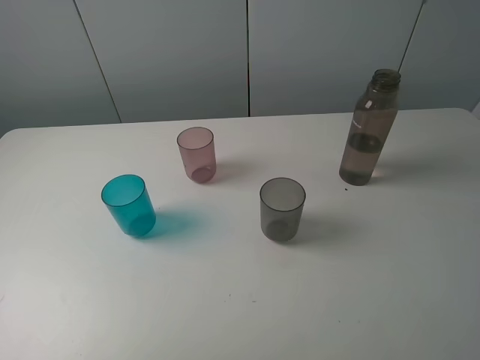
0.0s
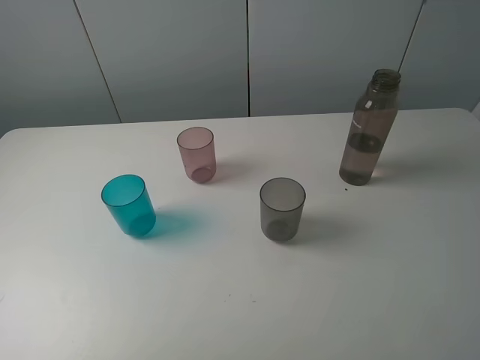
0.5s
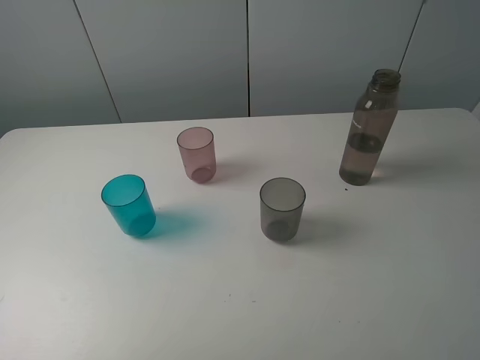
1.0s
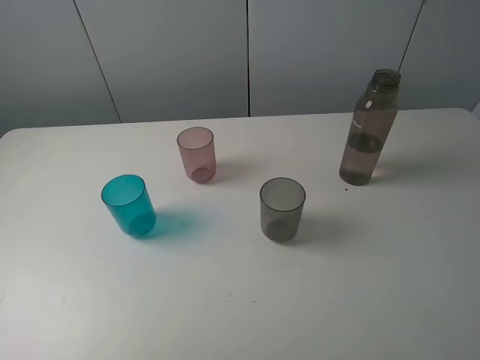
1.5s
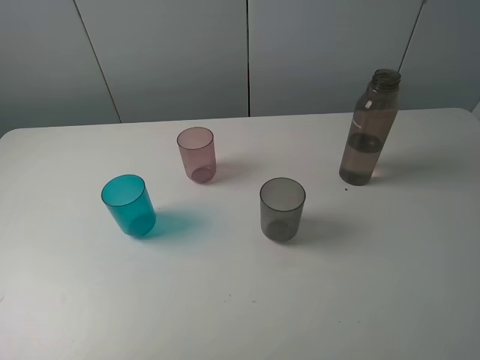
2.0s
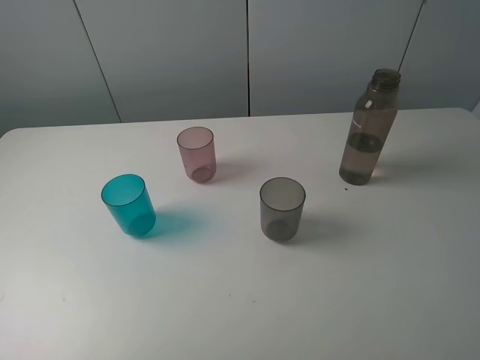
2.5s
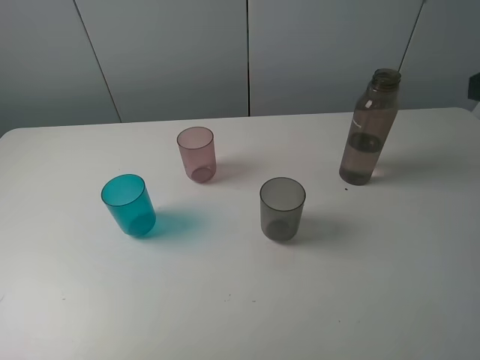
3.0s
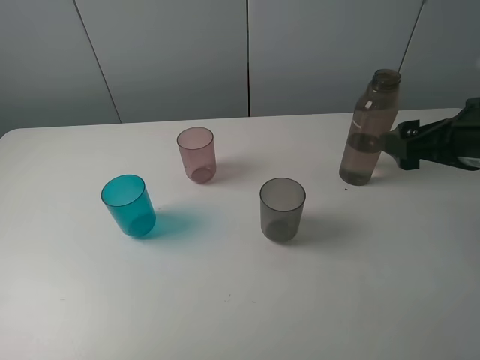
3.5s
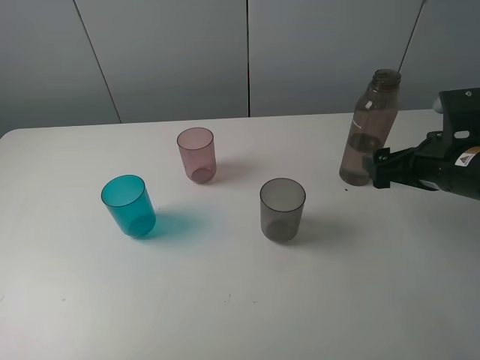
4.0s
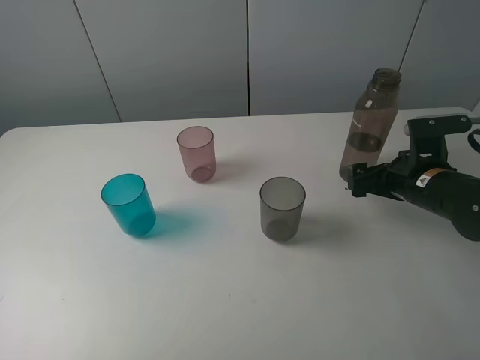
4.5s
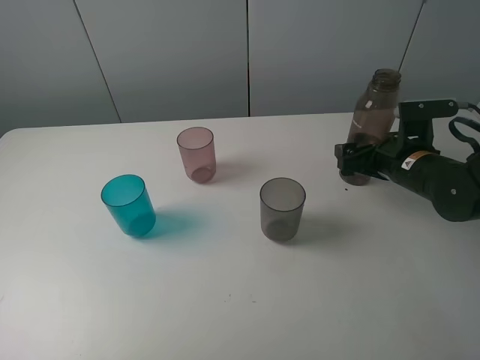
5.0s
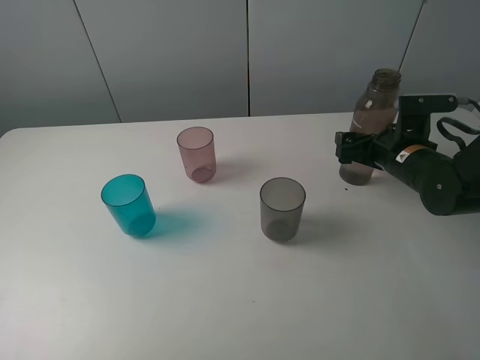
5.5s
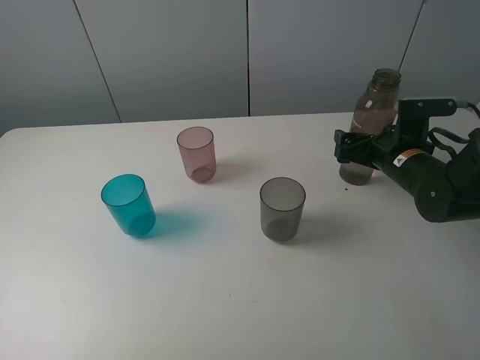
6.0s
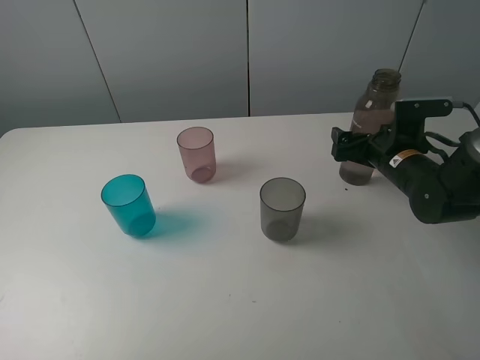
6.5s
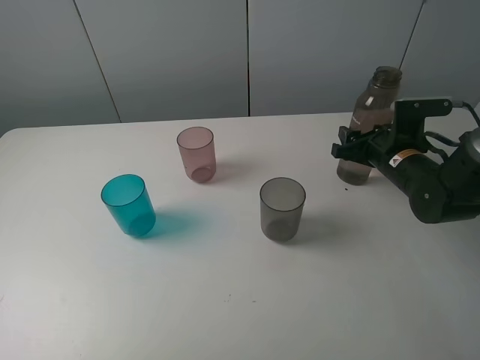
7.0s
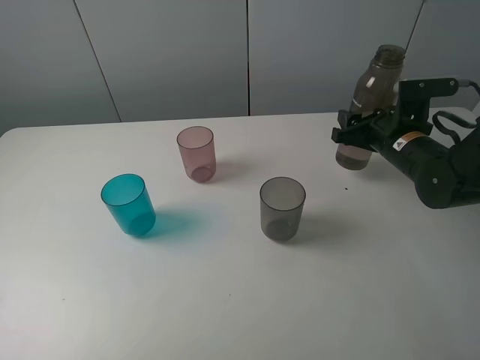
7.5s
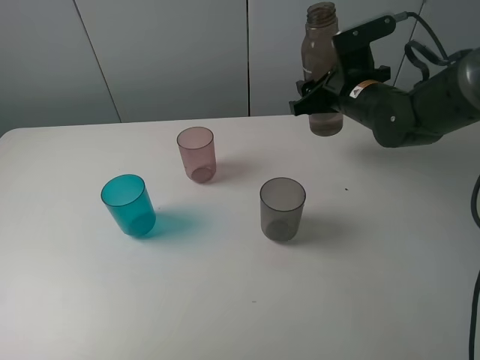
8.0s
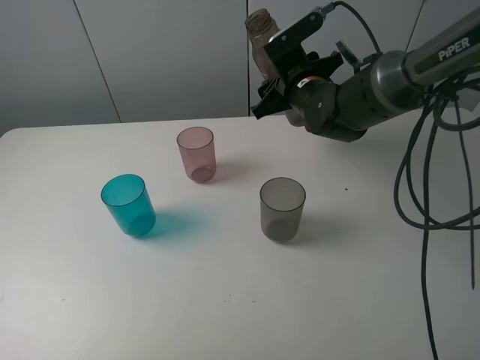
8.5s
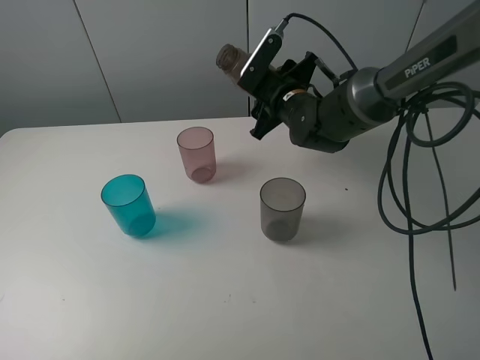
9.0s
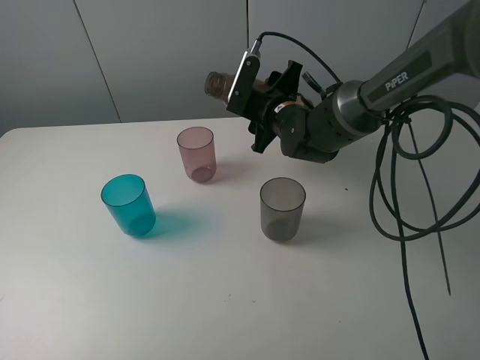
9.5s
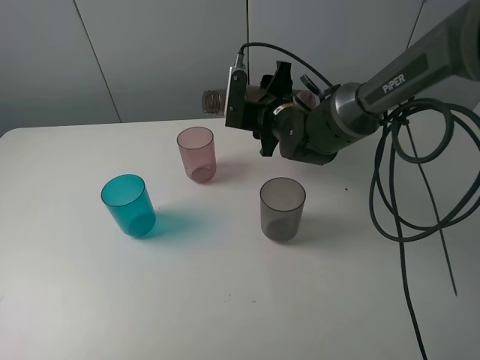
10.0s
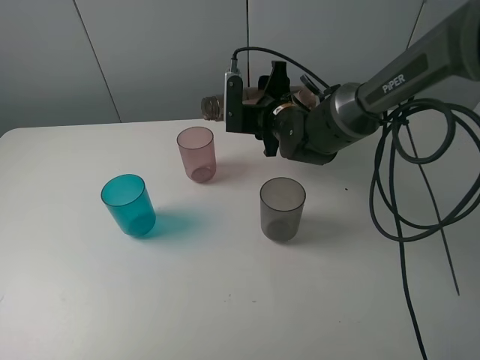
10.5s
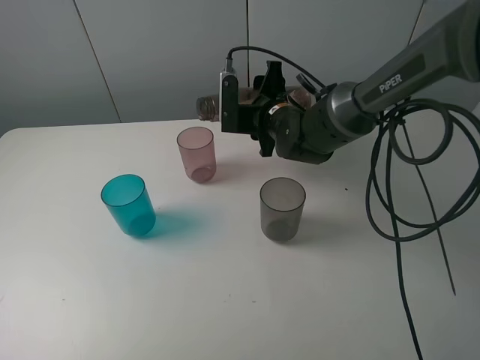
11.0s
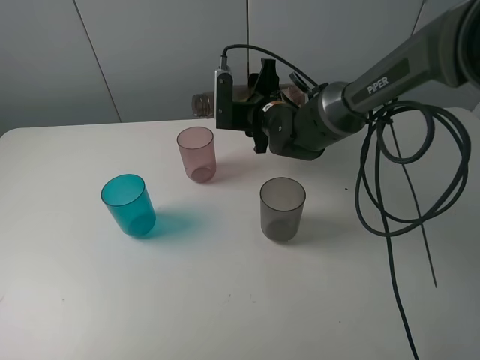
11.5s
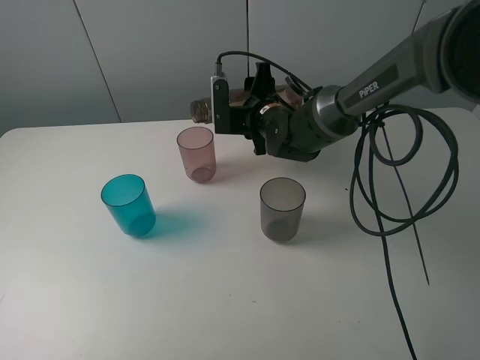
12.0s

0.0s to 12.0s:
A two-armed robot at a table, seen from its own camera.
Task of the whole recording: pick up the bottle filled with water and pour water into the middle cup of the three cups.
Step, 0.0s to 6.5s: Grasp the transparent bottle with the right gripper.
0.0s to 2.0s: Neither gripper changes place.
2.0s to 4.0s: The right gripper is displaced forward and downward by approximately 30 cm.
4.0s to 6.0s: The right gripper shifts some 10 cm forward and downward.
6.0s to 8.0s: The right gripper moves upward, to the left and forward, about 15 cm, and closes its fingers.
8.0s to 10.0s: The right gripper goes some 10 cm to the left and downward.
10.0s to 12.0s: The grippers stay close to where they were, moving slightly.

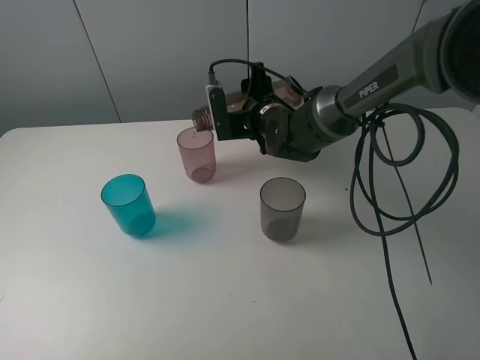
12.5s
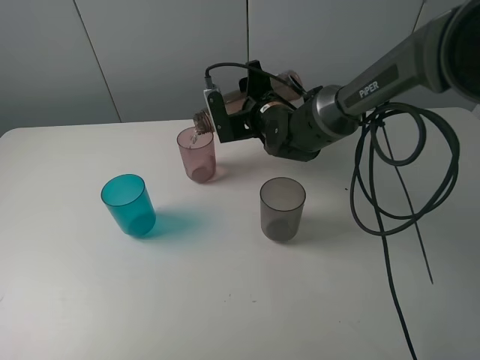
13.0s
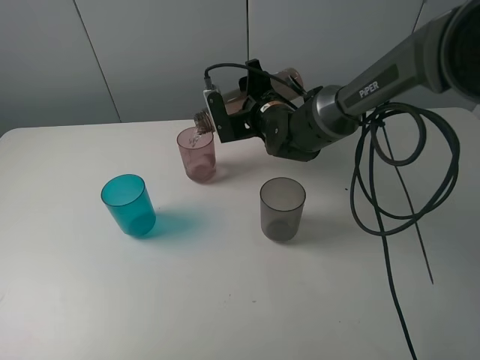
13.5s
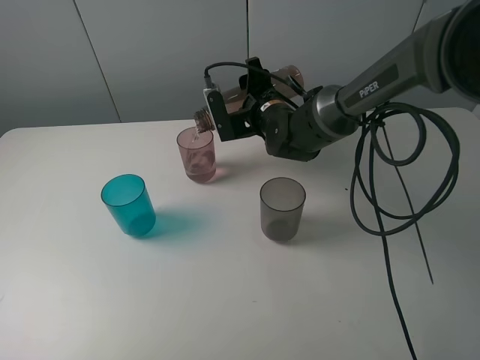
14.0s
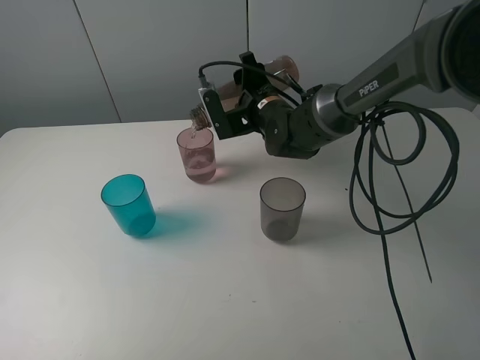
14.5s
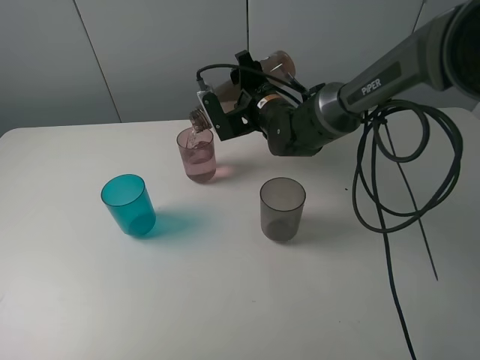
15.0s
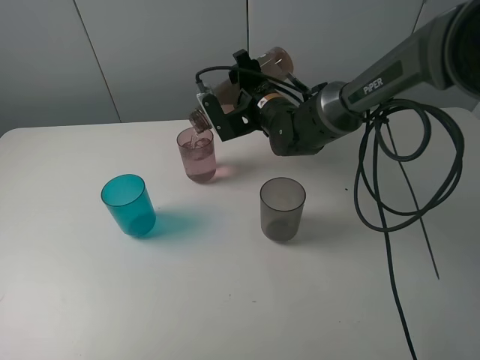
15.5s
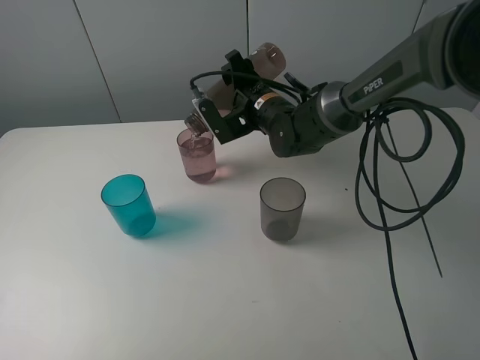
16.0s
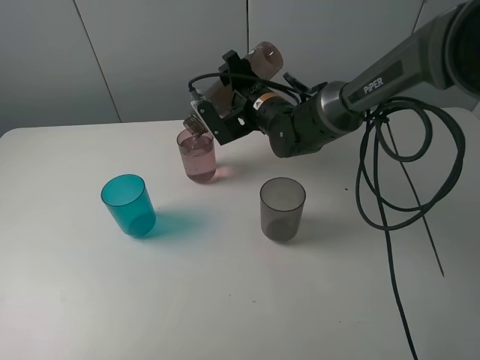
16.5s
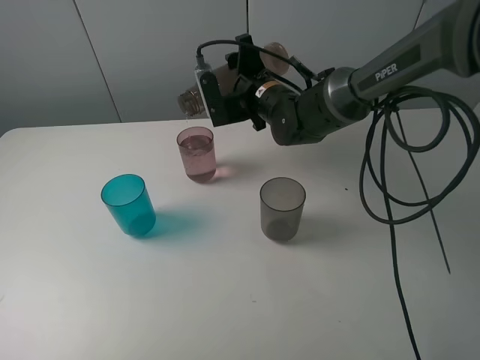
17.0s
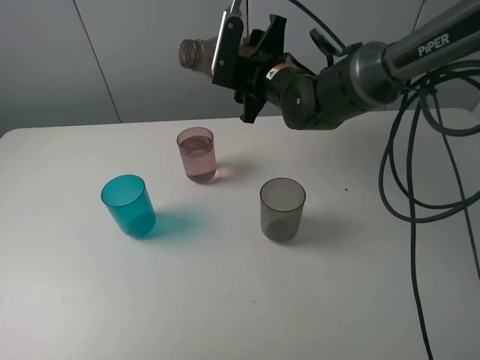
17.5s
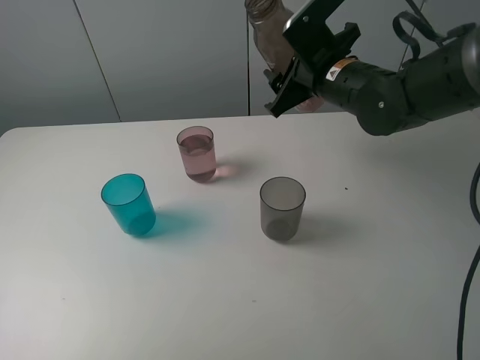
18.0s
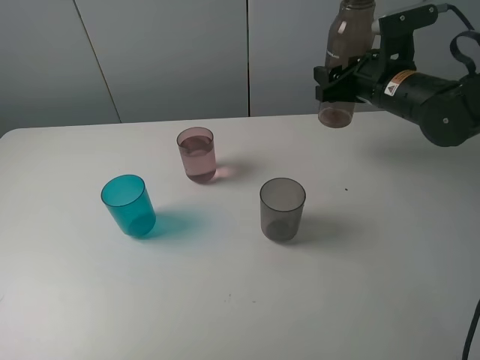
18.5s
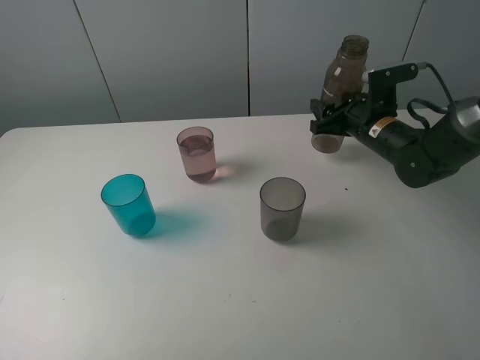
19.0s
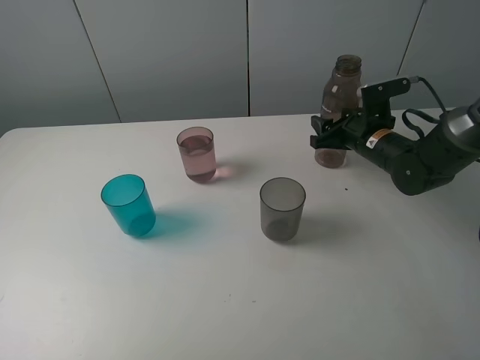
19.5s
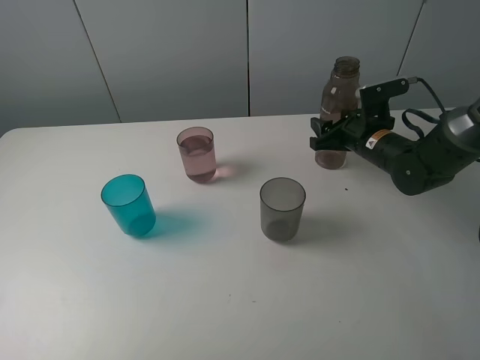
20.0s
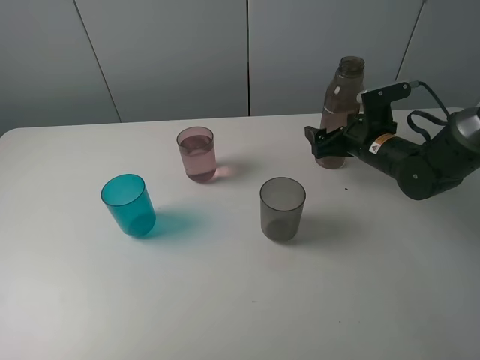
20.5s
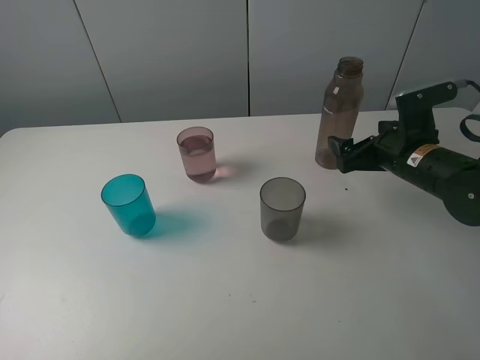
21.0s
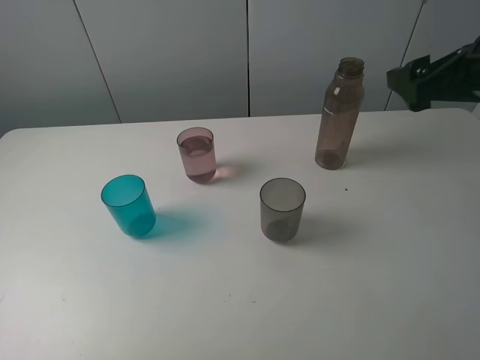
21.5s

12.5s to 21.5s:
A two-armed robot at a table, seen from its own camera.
Task of the whole recording: pick up the bottle filled with water and pour water into the middle cup of the three cups.
Step, 12.5s to 17.0s: Pour water from transparent bottle to red cup with the right gripper.
Step, 17.5s to 21.0s: Place the transparent bottle with the right gripper.
12.5s to 14.5s: There are only small adjustments of the grippers.
14.5s to 17.0s: The grippers make only small movements.
17.0s to 19.5s: The right gripper is displaced to the right by about 20 cm.
19.5s to 21.5s: The right gripper travels upward and backward by approximately 25 cm, and opens.

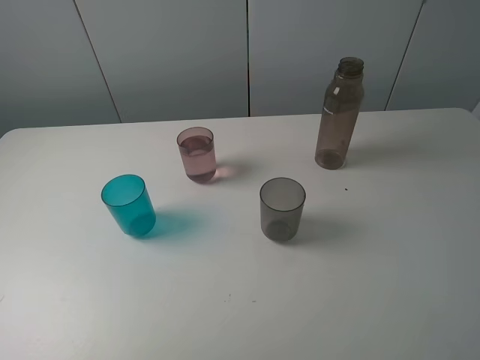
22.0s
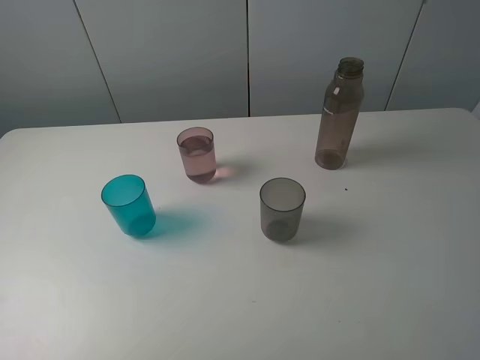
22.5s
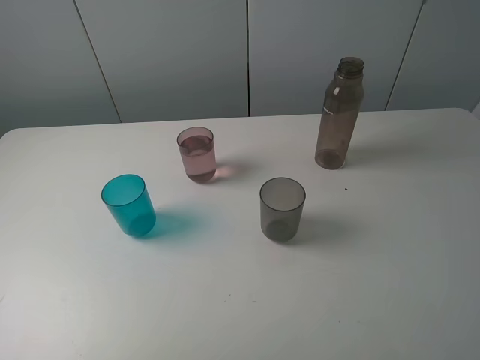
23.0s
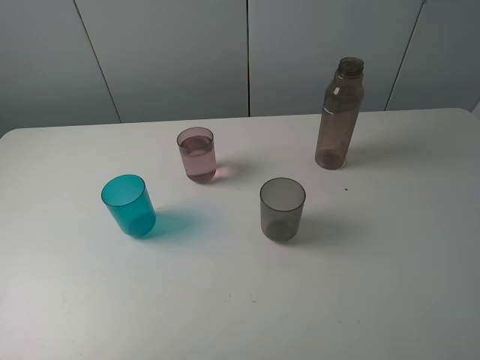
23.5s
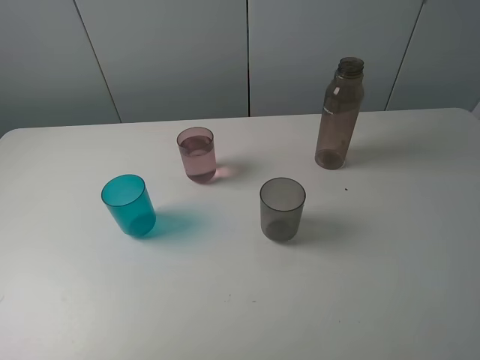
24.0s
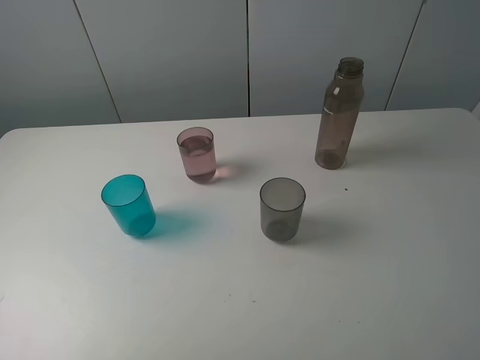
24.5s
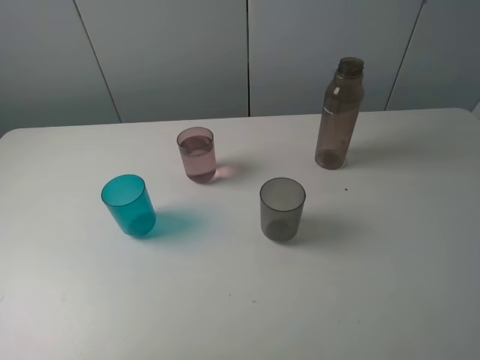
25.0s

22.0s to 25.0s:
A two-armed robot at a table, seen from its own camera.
Task of the whole recording: pick up the bottle filled with water and pour water into the middle cup of the three cups.
23.5s to 25.0s: The two grippers keep their place.

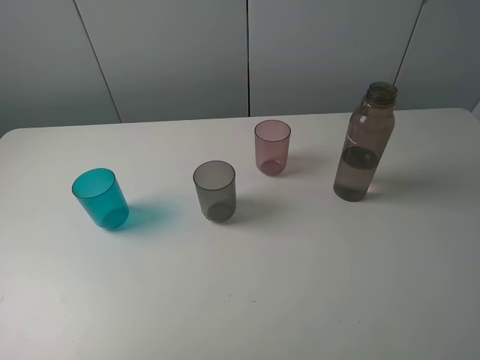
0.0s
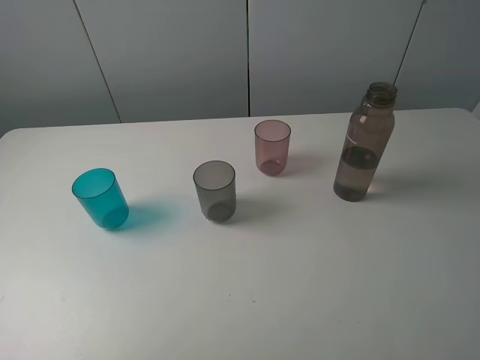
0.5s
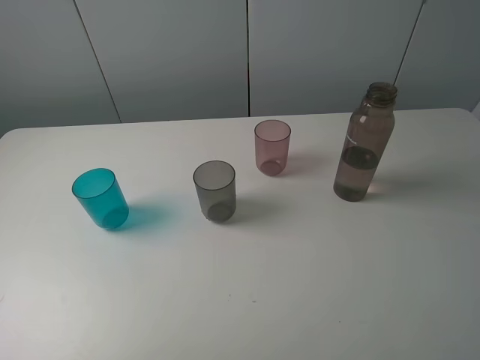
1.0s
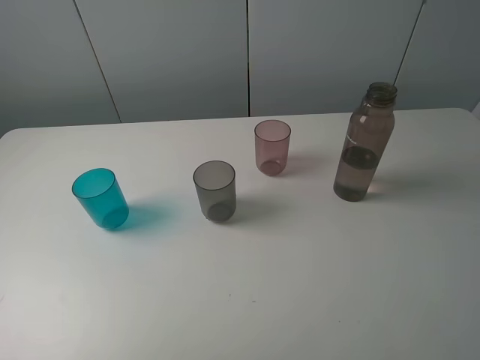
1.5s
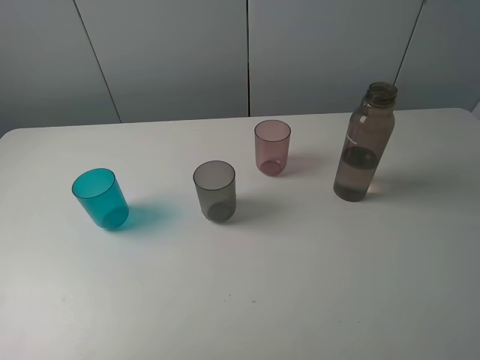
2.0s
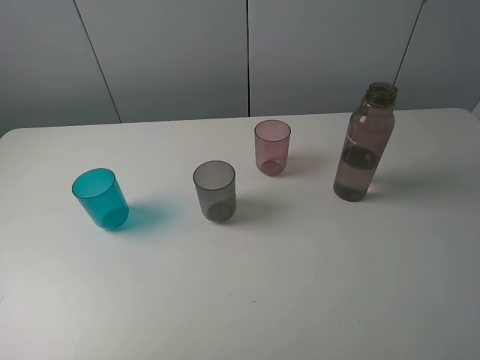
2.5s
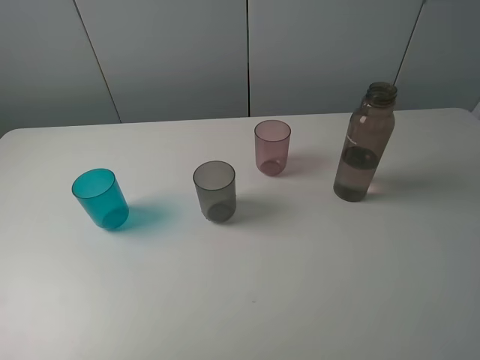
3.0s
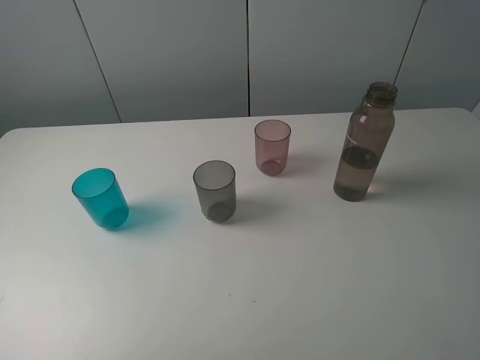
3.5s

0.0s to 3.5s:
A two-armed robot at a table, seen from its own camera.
Task of the whole recording: pick up the bottle filled with water and pour water into the middle cup of the three cups.
0.0s to 2.0s: Neither gripper changes place.
